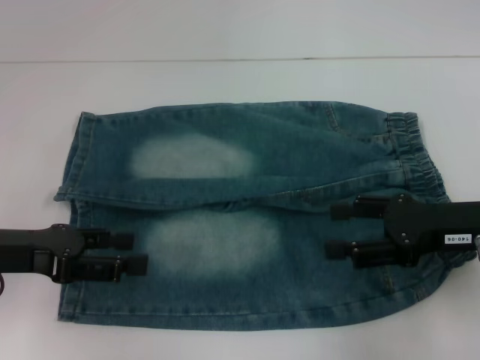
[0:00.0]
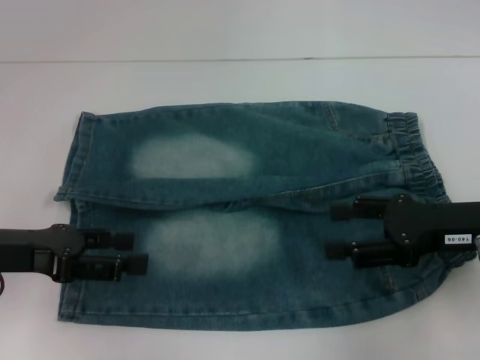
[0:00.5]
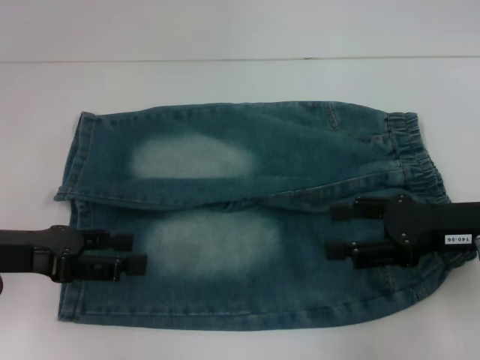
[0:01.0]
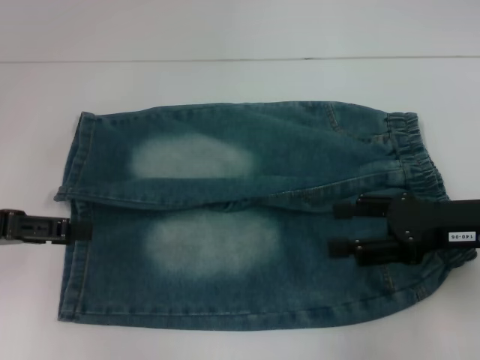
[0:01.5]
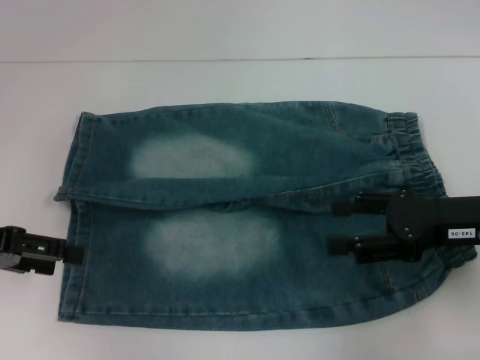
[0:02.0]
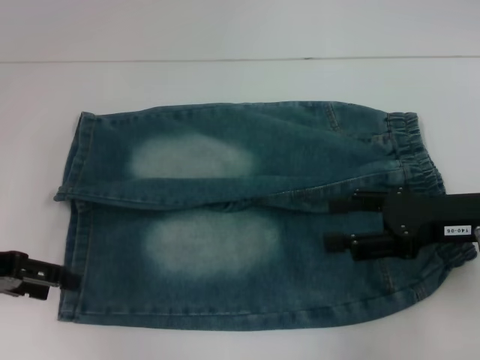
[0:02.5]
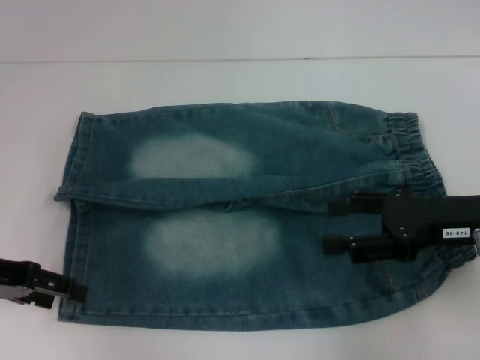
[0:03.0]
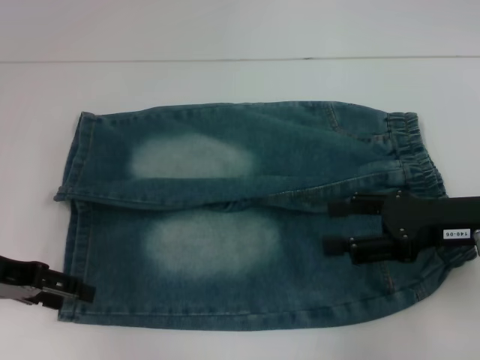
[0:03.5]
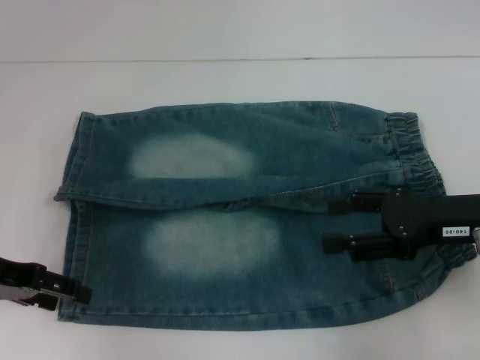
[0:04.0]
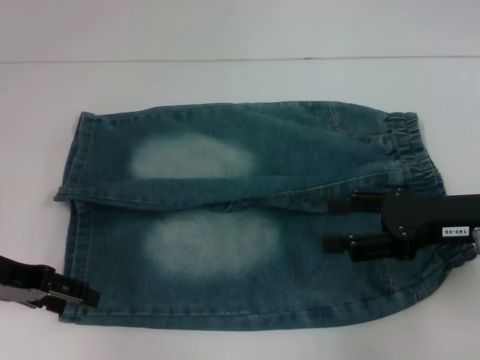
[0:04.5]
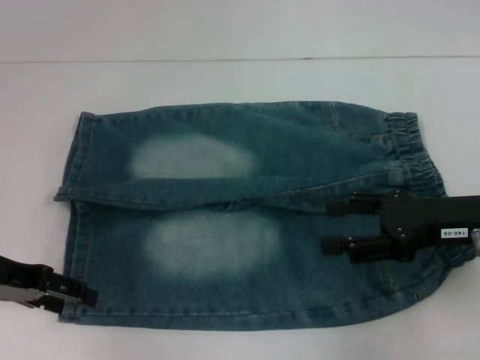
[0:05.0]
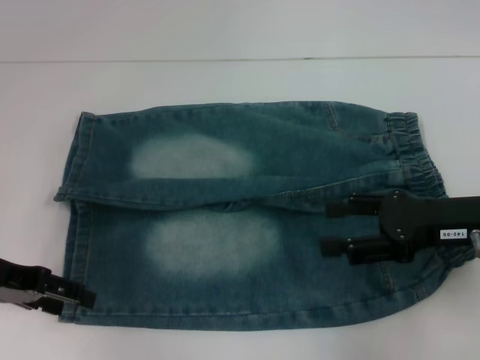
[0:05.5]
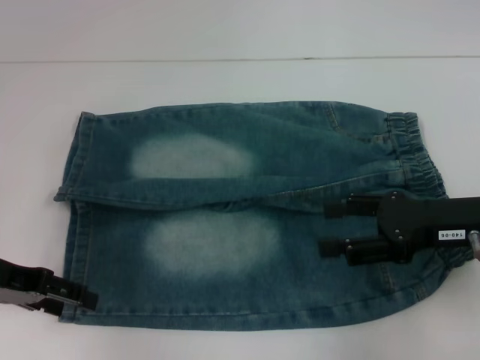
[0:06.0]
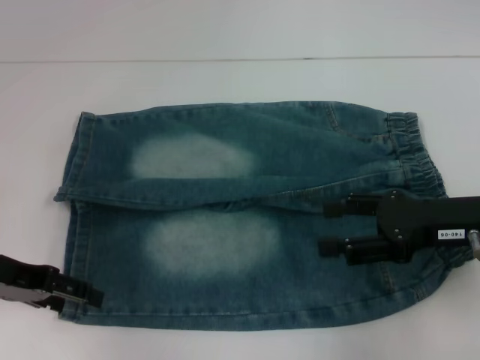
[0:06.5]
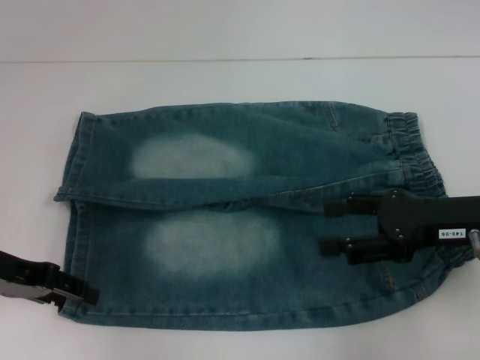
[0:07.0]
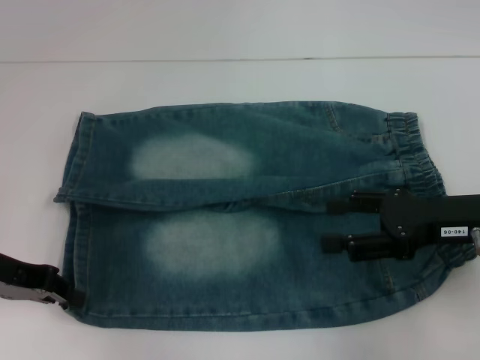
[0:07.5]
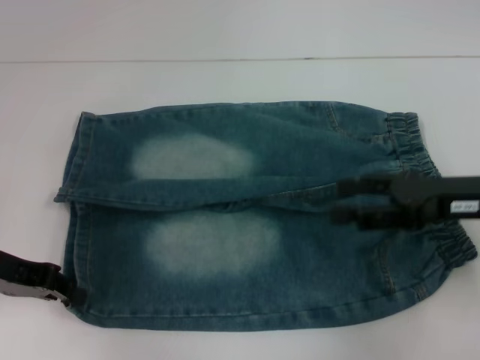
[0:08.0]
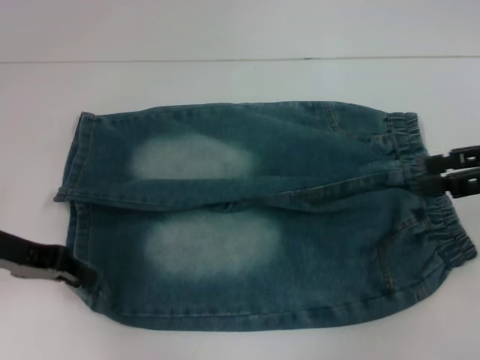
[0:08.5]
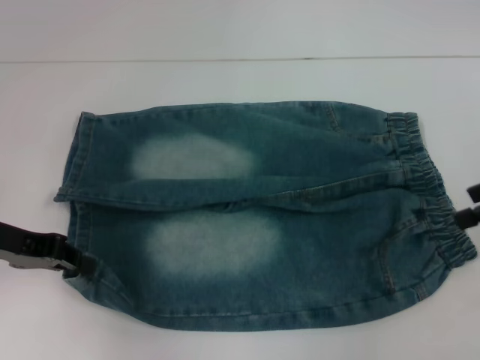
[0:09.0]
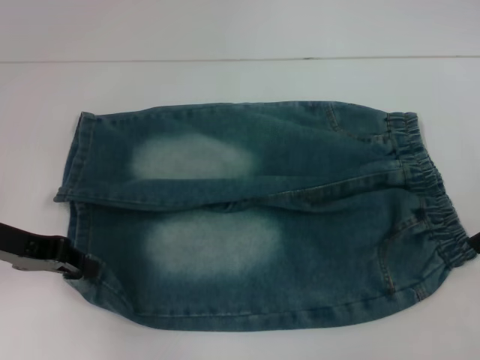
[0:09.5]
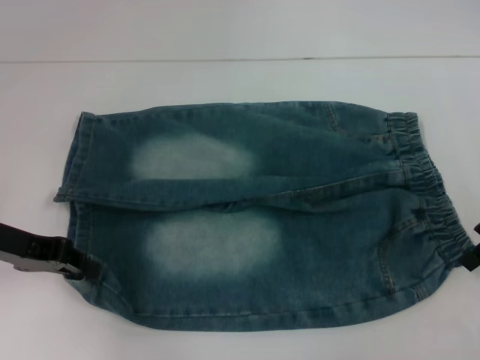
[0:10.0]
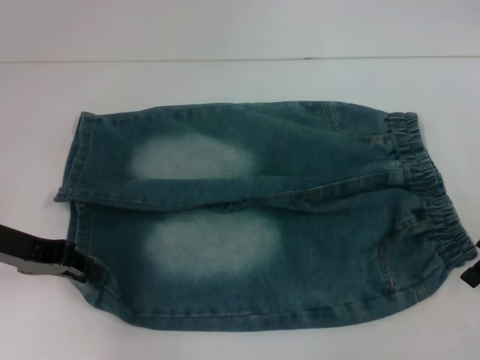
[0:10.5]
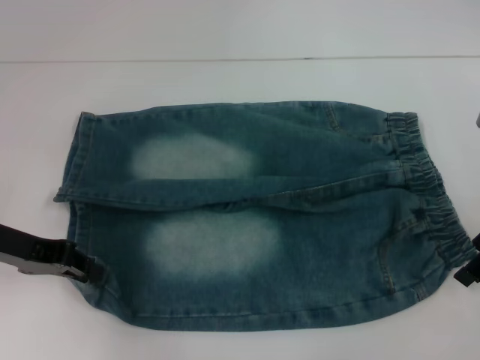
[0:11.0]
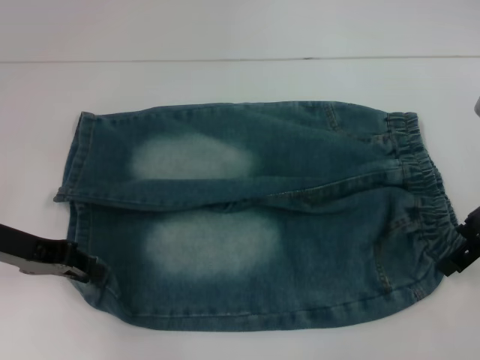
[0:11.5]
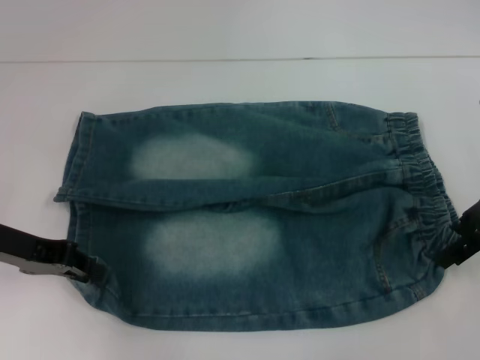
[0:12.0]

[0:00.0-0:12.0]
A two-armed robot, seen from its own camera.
Step, 0:00.0 to 0:07.5: Grab the lower left pant leg with your left hand.
0:00.0 to 0:02.0: The left gripper changes place by approximately 5 cm.
0:02.0 to 0:04.0: The grippers make only small movements.
0:04.0 to 0:06.0: The two grippers keep their place.
0:06.0 to 0:08.0: The left gripper closes its fingers.
0:08.0 to 0:10.0: The right gripper travels forward by about 5 cm.
0:10.0 to 0:12.0: The grippers make only small movements.

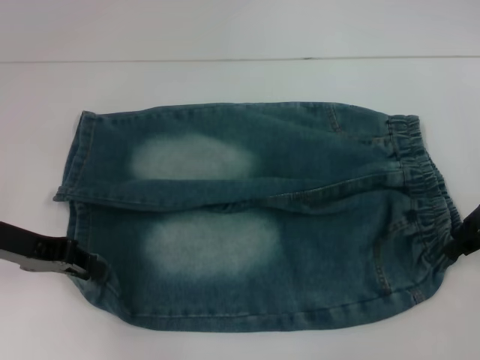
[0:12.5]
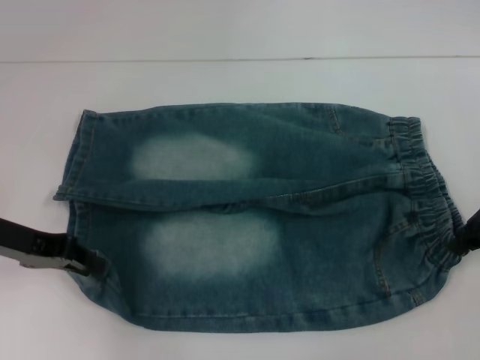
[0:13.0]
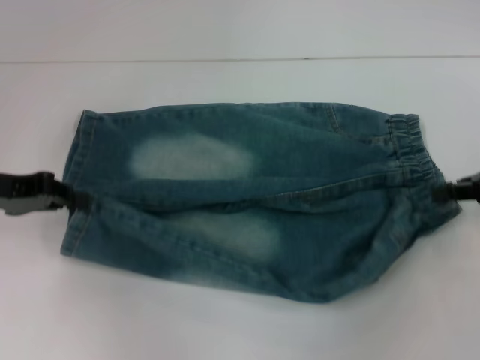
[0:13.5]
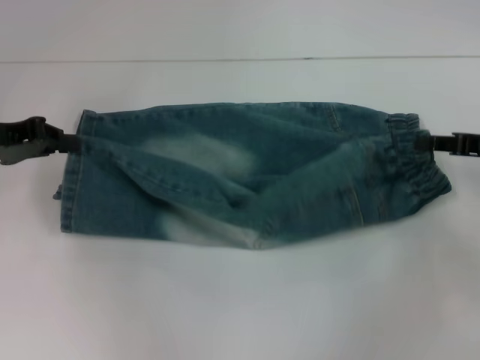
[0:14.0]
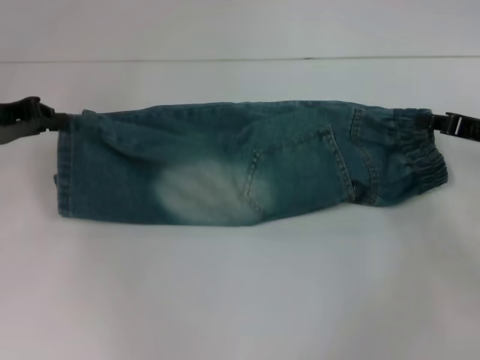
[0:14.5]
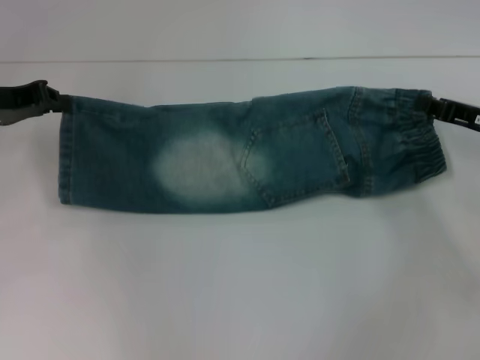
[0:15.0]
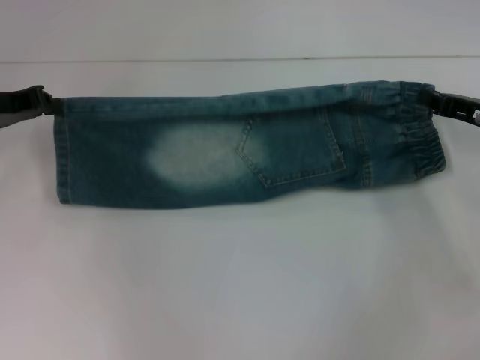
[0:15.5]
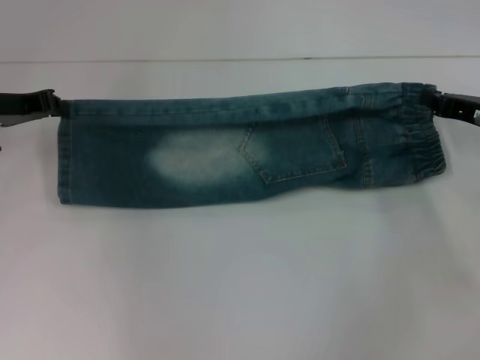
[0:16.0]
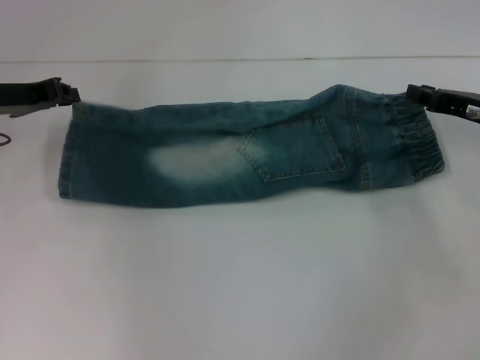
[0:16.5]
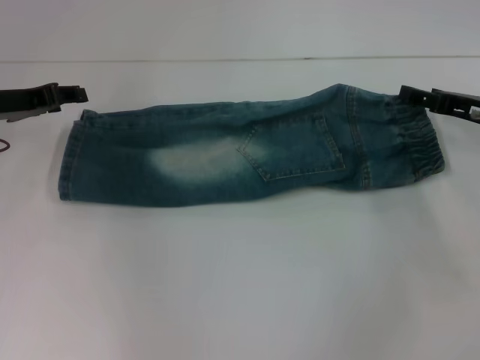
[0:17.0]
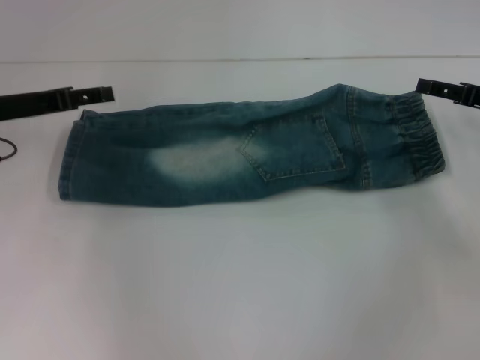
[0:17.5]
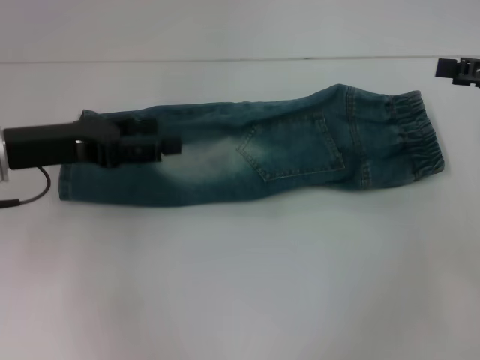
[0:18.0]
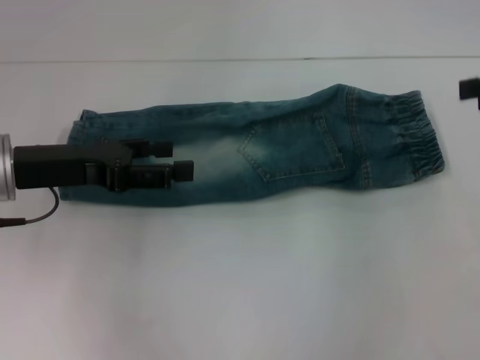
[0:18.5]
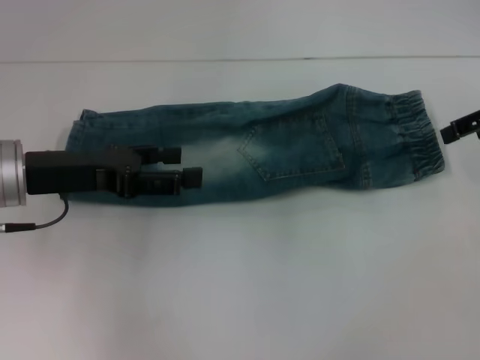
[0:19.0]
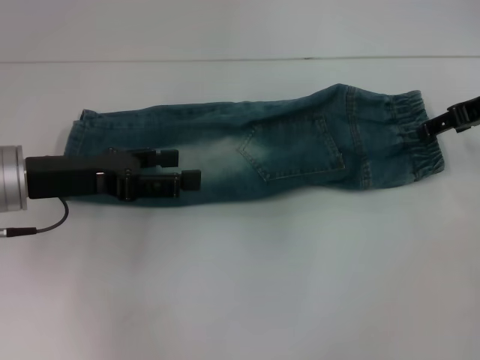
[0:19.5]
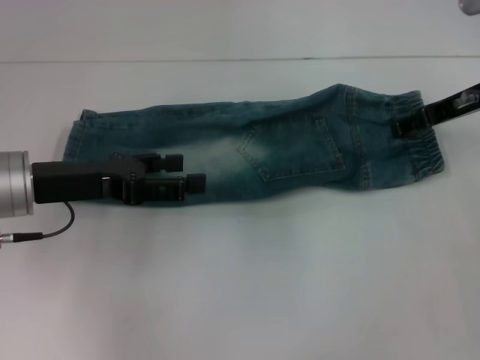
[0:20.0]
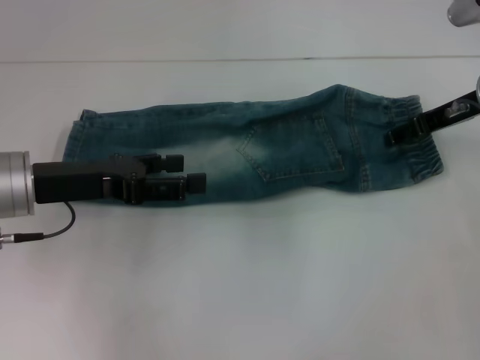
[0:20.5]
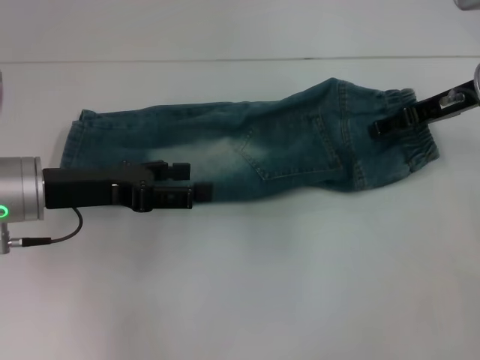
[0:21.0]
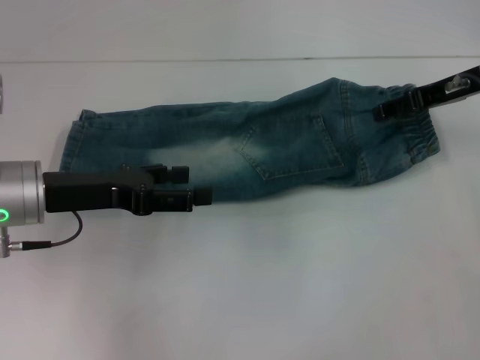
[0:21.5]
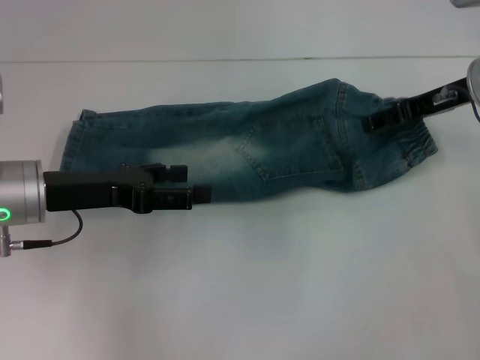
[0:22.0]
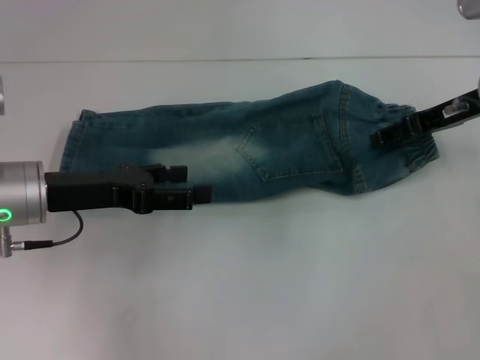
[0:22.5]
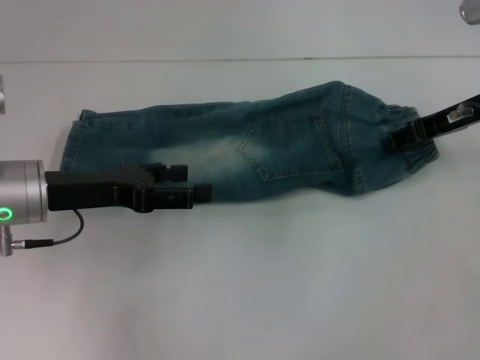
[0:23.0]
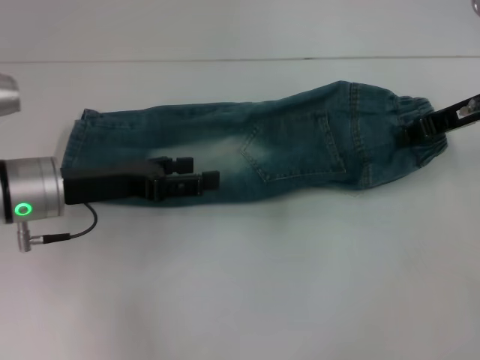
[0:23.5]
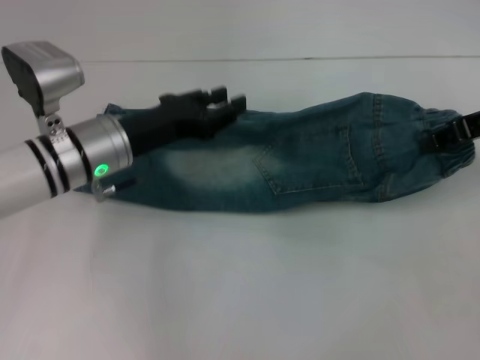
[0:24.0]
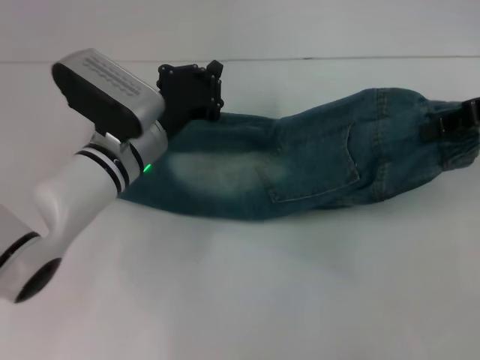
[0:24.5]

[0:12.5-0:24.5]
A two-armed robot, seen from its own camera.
Step, 0:13.0 to 0:16.0: Fold upward with your right hand.
Step, 0:17.0 to 0:23.0: Grab the waistband with your right hand.
0:12.5 to 0:14.5: The left gripper goes roughly 5 cm forward. The right gripper shifts about 5 cm downward, and closes its fingers.
0:14.5 to 0:16.5: There are only small adjustments of the grippers.
0:16.5 to 0:18.5: The right gripper heads upward, covering about 15 cm, and opens up, while the left gripper heads backward, covering approximately 10 cm, and opens its fingers.
0:18.5 to 0:20.5: The right gripper shifts about 15 cm to the left, downward and forward.
0:20.5 to 0:22.5: There are only small adjustments of the grippers.
0:22.5 to 0:24.5: The left gripper goes some 10 cm to the right and forward, and closes its fingers; the right gripper heads upward, covering approximately 5 cm, and closes.

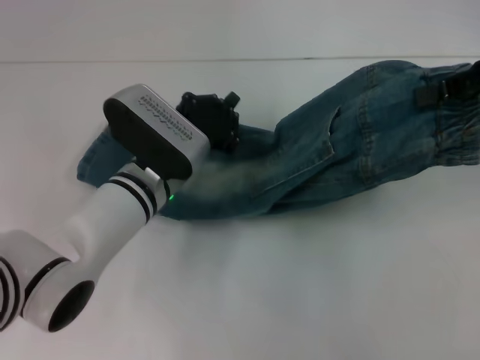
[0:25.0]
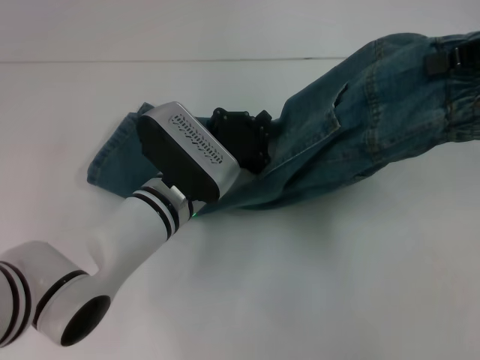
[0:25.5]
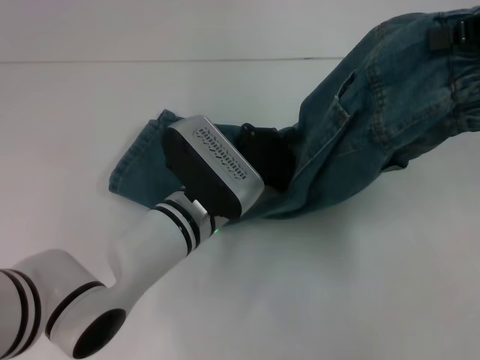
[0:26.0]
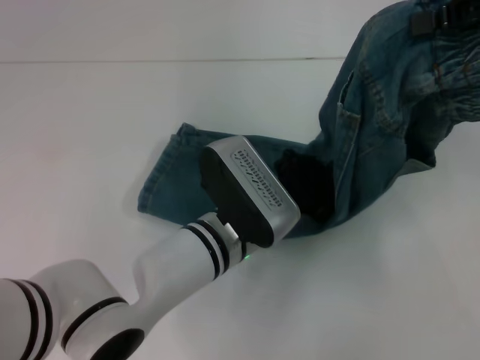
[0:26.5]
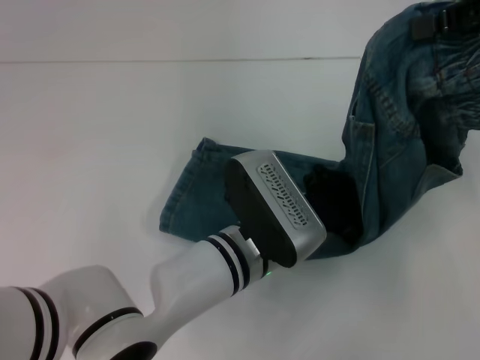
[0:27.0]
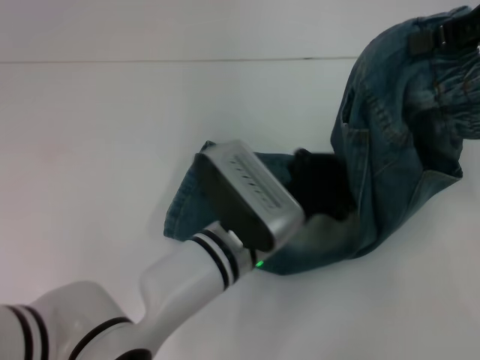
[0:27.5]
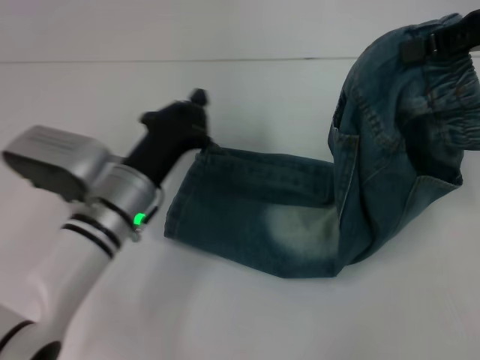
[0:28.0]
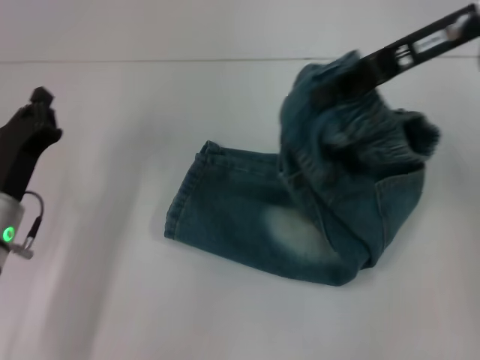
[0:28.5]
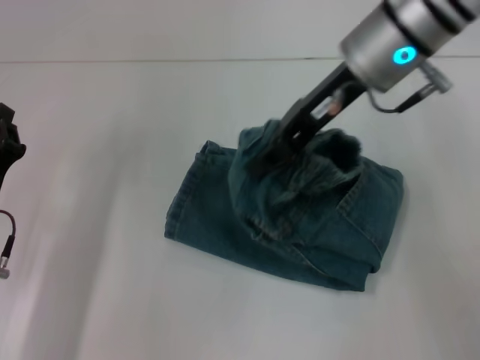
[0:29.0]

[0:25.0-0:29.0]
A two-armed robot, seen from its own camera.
Step, 0:25.0 to 0:27.0: Press the middle of the pants with your left hand.
0:25.0 to 0:27.0: The left gripper goes some 10 cm to the right and backward.
0:27.0 to 0:29.0: Both grippers travel together to the left, approximately 20 cm.
